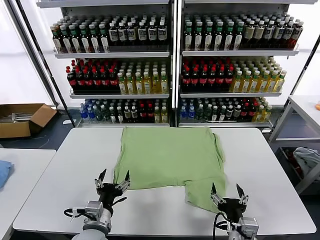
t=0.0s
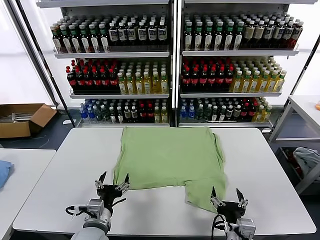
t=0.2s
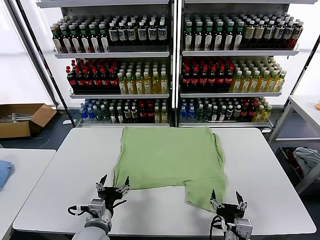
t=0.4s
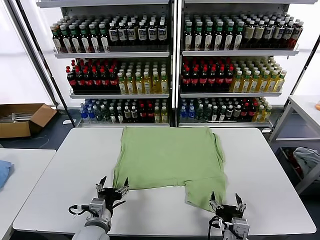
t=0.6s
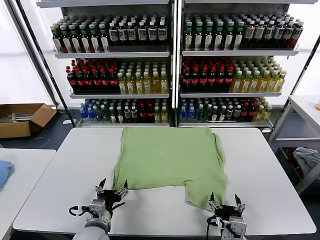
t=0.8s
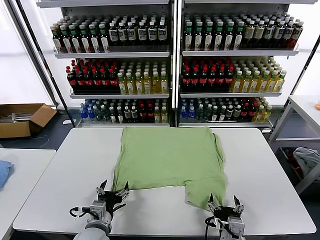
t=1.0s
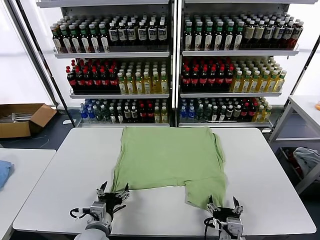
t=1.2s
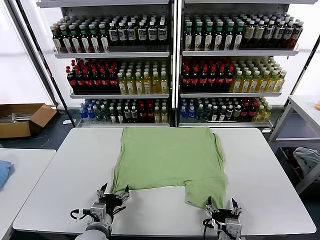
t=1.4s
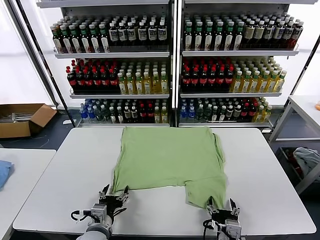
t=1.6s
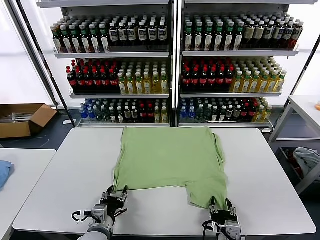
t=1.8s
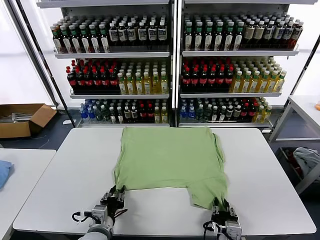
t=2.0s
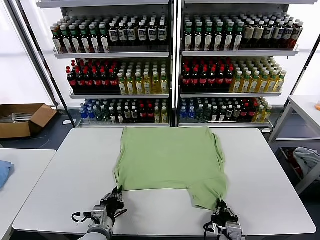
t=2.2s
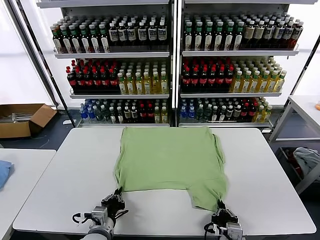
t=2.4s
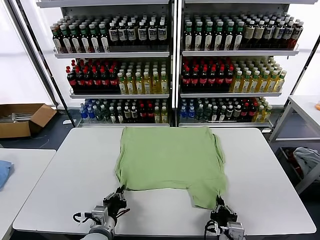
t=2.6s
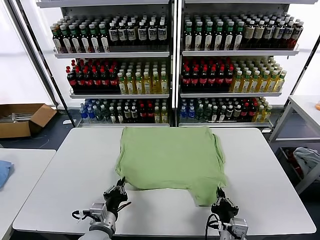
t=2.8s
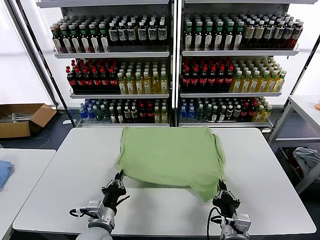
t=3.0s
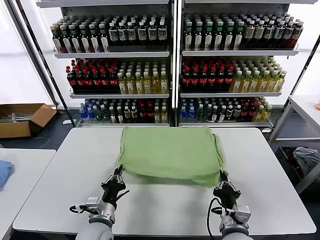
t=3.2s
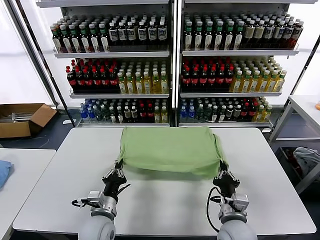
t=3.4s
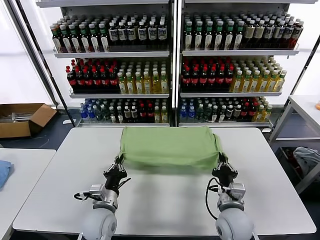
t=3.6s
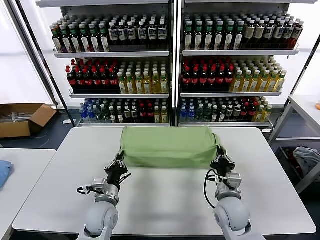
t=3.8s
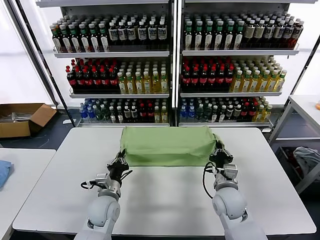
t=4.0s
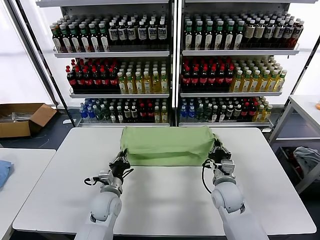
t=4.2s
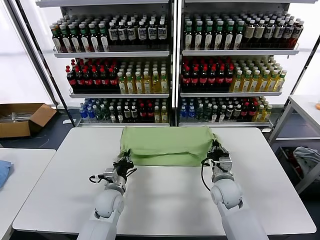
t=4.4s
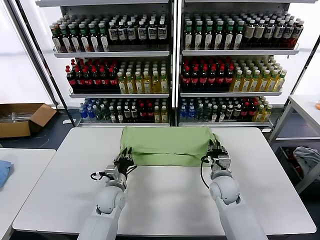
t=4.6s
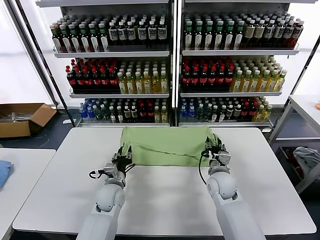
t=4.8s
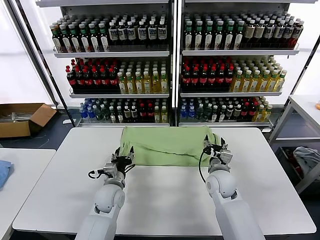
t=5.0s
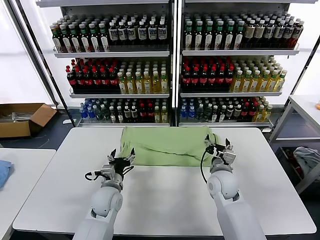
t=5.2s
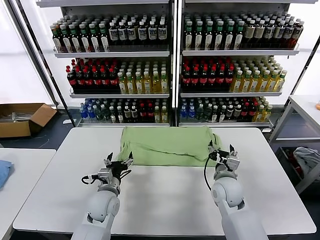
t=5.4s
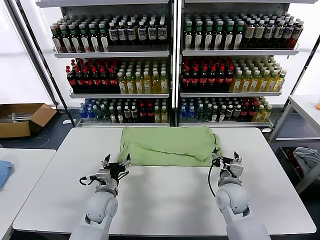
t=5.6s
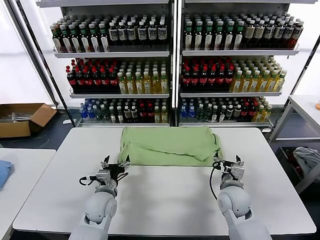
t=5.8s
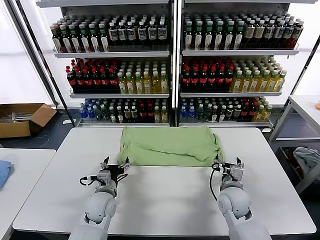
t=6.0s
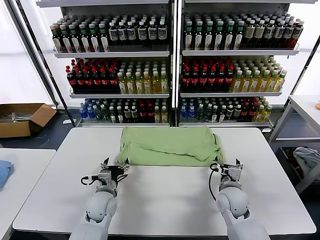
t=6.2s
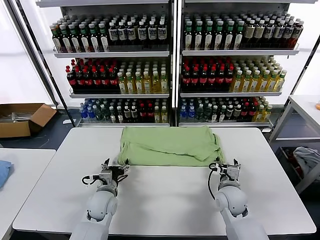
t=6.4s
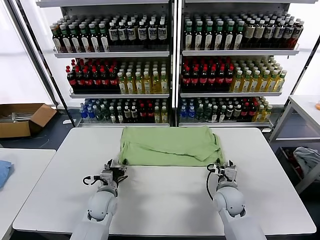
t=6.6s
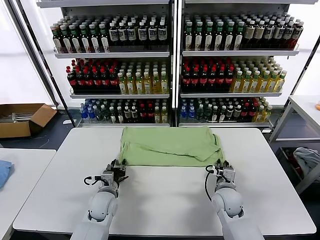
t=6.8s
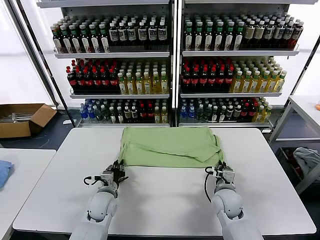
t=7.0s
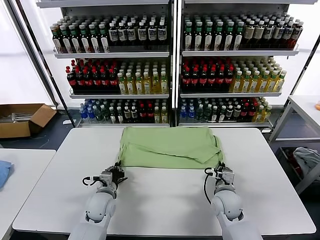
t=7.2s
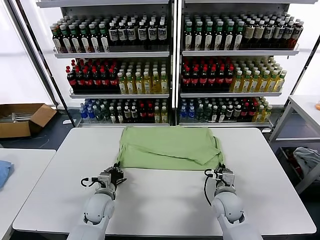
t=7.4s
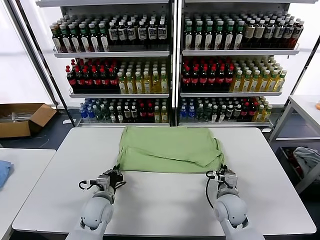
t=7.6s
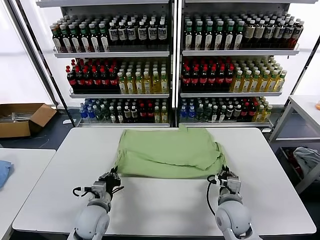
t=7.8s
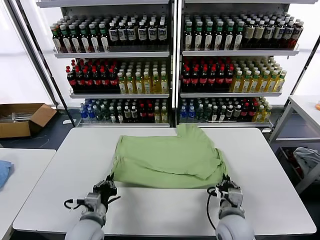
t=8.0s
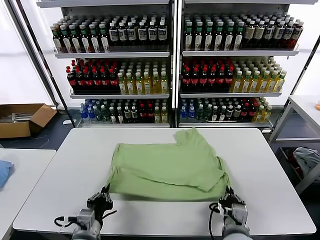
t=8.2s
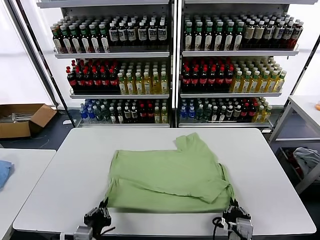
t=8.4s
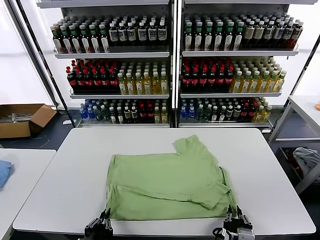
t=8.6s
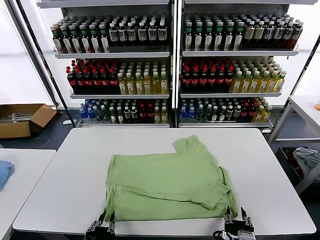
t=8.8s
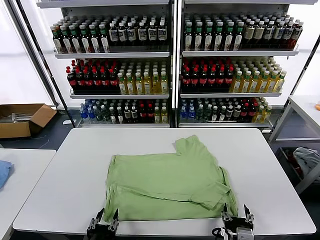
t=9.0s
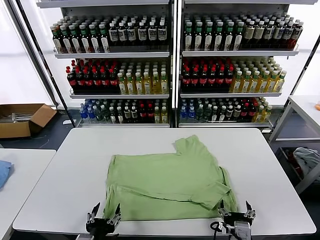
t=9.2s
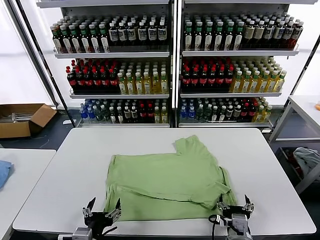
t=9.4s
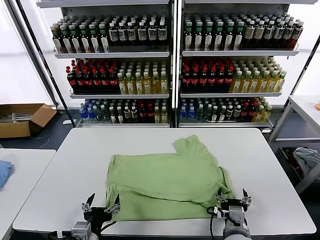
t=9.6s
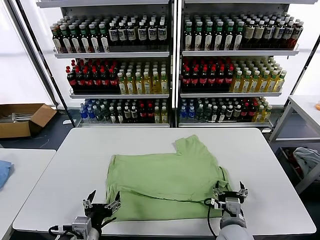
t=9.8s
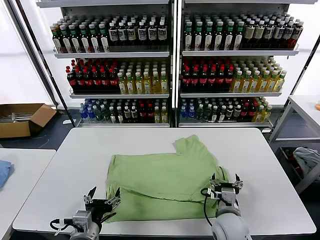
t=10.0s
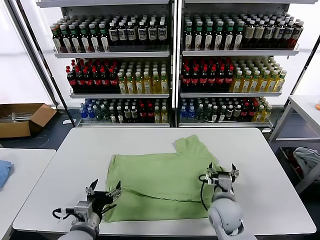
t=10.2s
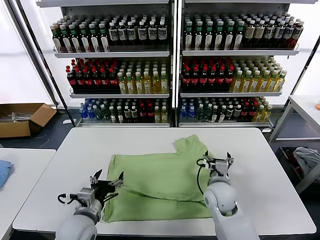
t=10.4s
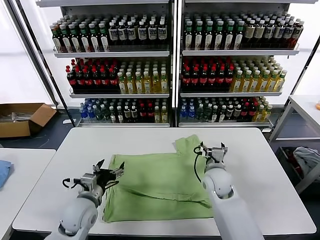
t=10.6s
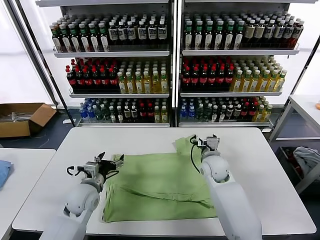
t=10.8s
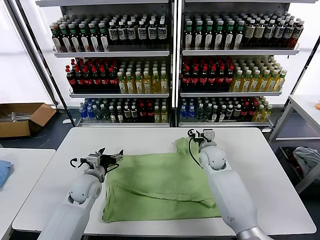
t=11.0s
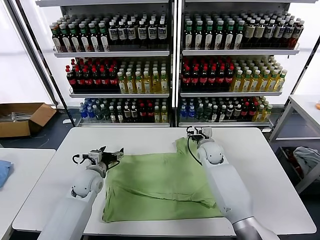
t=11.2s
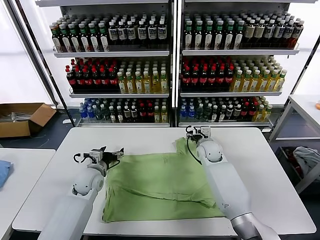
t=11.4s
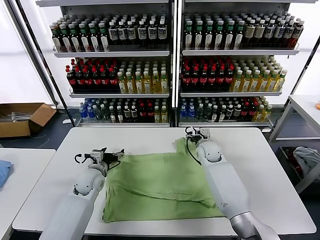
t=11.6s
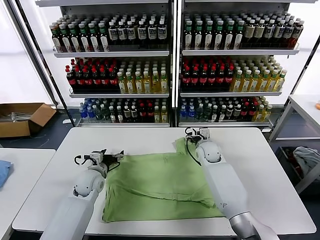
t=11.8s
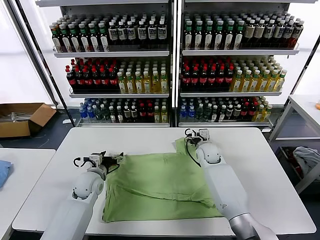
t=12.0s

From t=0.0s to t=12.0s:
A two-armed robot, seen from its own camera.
Task of the whole recording: fold and organize the clothes.
Step, from t=0.0s to t=2.4s: use both grippers simultaneously to clamp the lower edge of the clothing fabric.
Step, from t=2.6s to t=4.8s: use both grippers to drag the lower edge of the fabric forward and fold it over the upper edge.
Step, from t=5.2s to t=8.8s: Drag the clothes downward with both gripper.
From t=1.6s to t=3.0s: The left gripper closes up. The right gripper closes up.
From t=3.0s to t=4.4s: Both grippers travel together forward, some 15 cm.
From t=4.4s to t=6.0s: The left gripper opens up. Meanwhile the right gripper opens.
From t=6.0s to t=7.6s: The left gripper closes. The right gripper closes up.
From t=7.6s to t=9.0s: Both grippers travel together backward, about 20 cm. The right gripper opens its fingers. The left gripper opens up.
From t=9.0s to t=10.4s: The left gripper travels forward by about 15 cm, while the right gripper is displaced forward by about 25 cm.
From t=10.4s to t=12.0s: Both grippers travel together forward, roughly 15 cm.

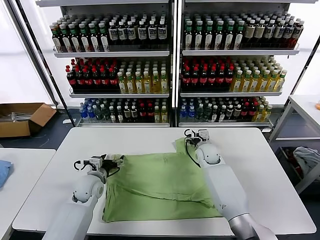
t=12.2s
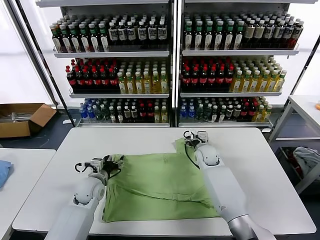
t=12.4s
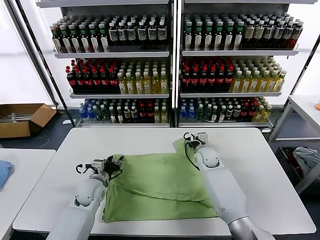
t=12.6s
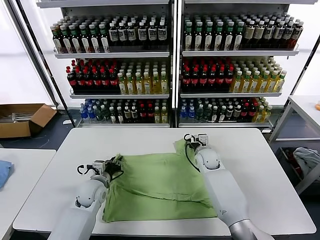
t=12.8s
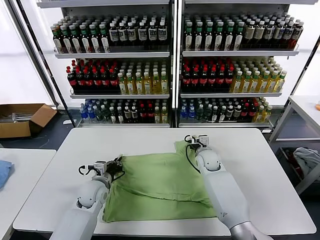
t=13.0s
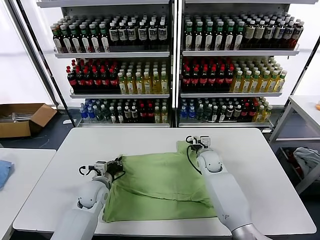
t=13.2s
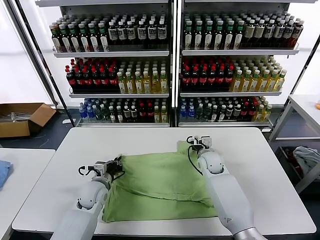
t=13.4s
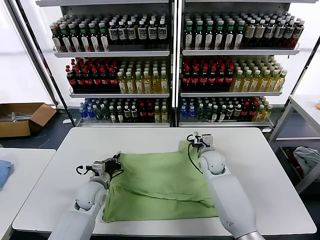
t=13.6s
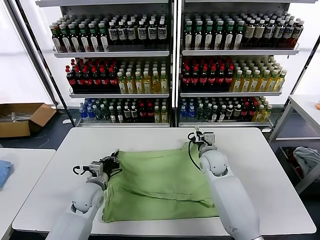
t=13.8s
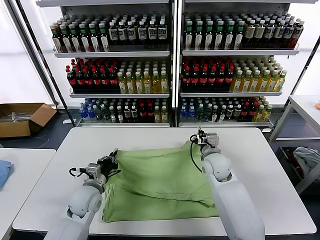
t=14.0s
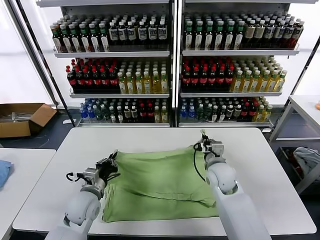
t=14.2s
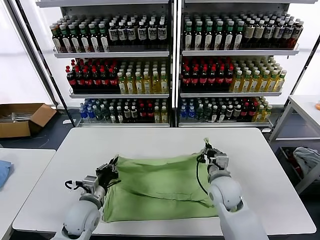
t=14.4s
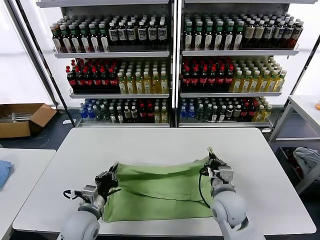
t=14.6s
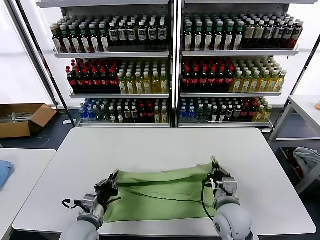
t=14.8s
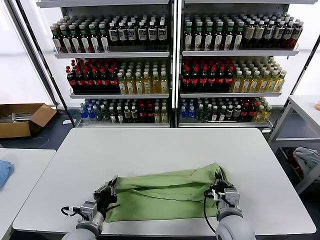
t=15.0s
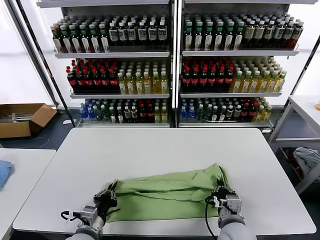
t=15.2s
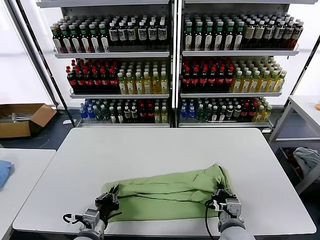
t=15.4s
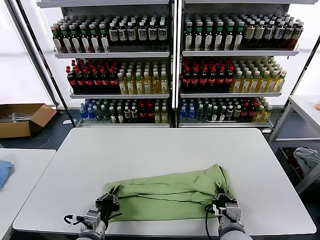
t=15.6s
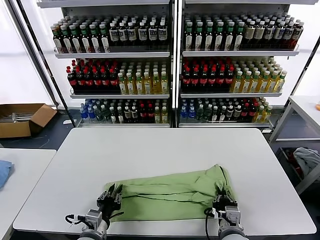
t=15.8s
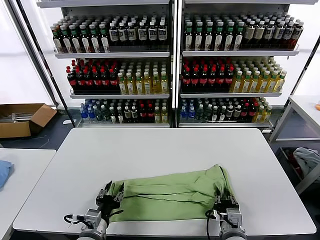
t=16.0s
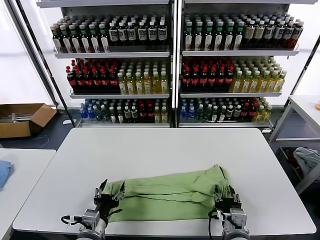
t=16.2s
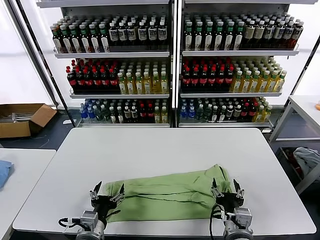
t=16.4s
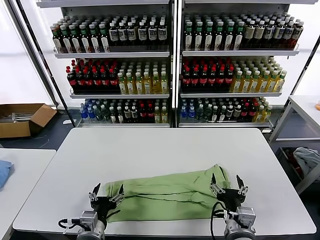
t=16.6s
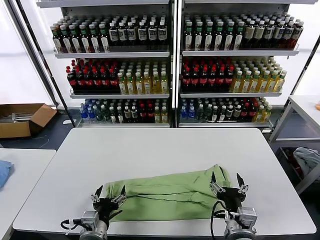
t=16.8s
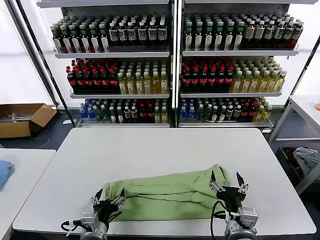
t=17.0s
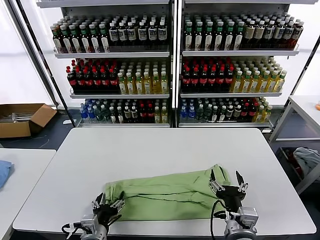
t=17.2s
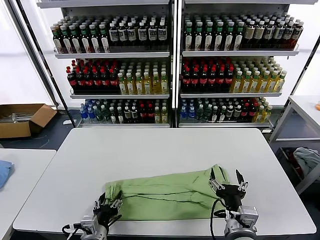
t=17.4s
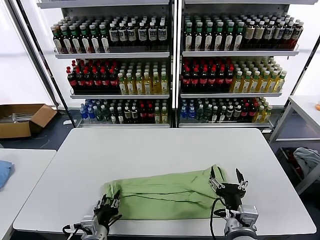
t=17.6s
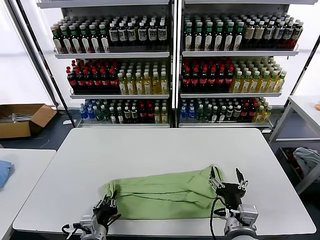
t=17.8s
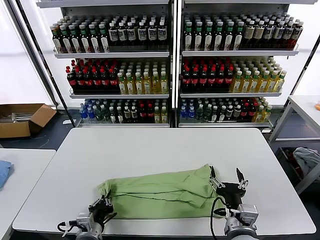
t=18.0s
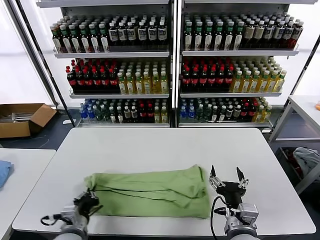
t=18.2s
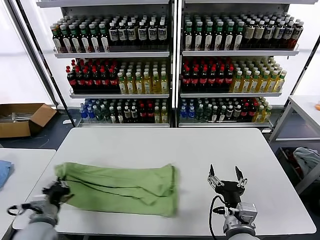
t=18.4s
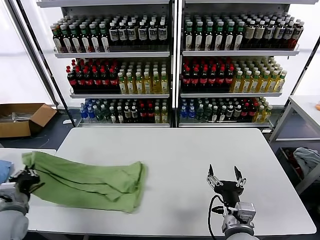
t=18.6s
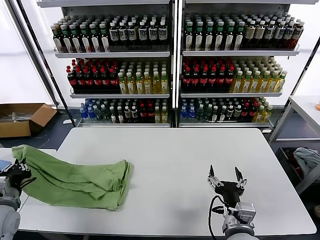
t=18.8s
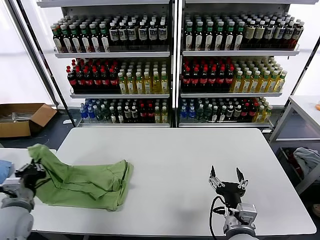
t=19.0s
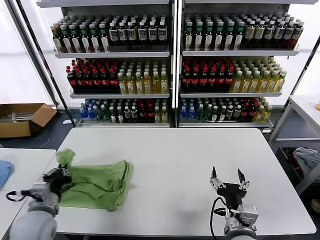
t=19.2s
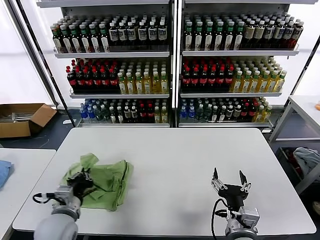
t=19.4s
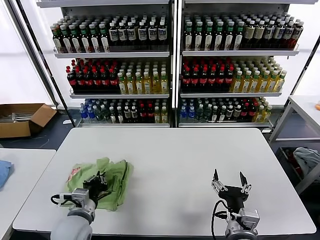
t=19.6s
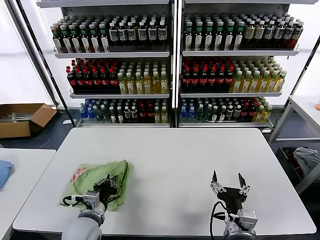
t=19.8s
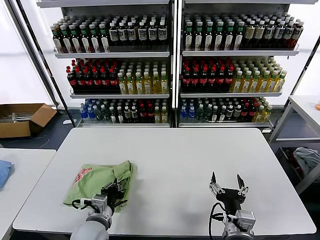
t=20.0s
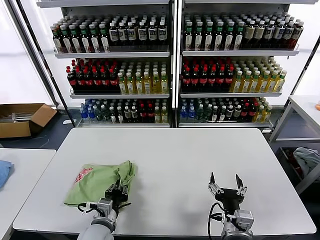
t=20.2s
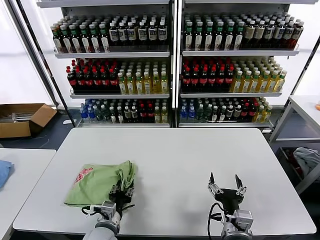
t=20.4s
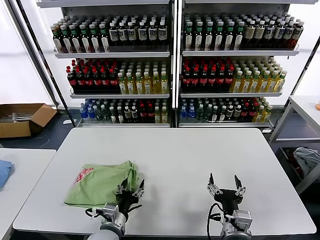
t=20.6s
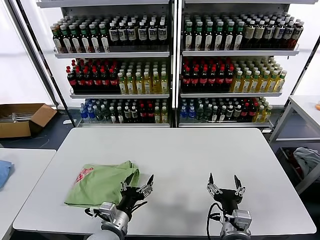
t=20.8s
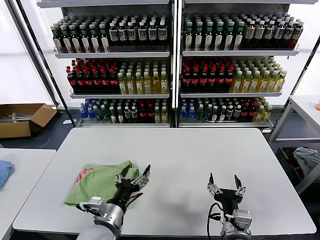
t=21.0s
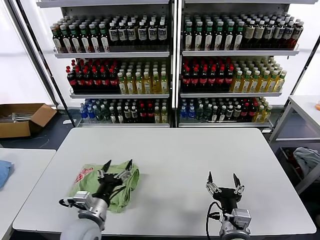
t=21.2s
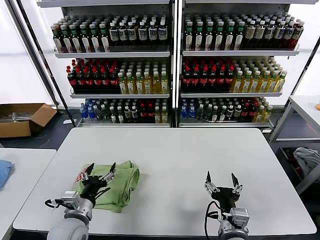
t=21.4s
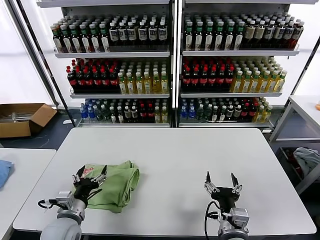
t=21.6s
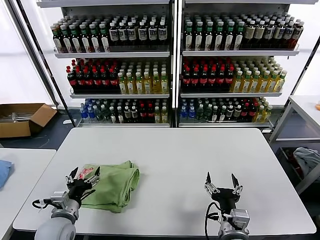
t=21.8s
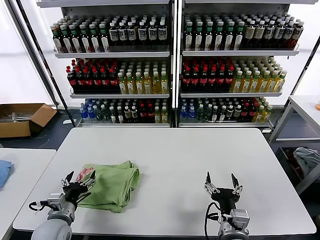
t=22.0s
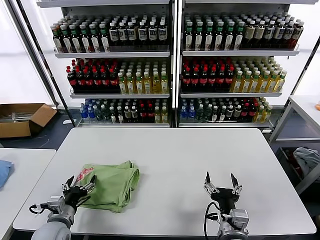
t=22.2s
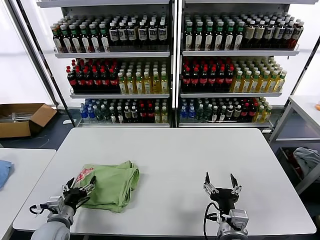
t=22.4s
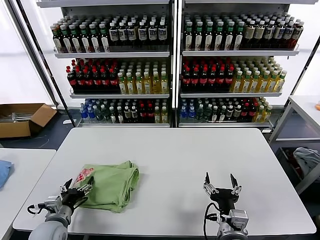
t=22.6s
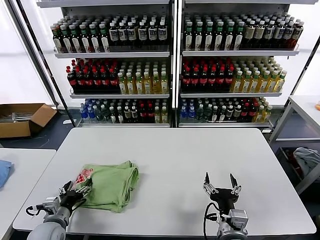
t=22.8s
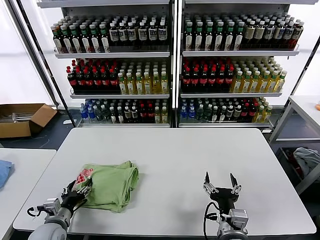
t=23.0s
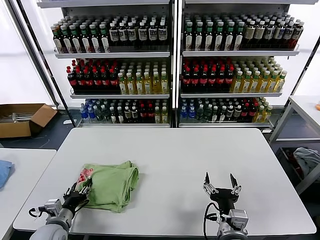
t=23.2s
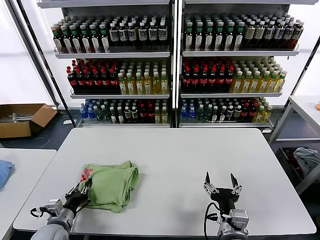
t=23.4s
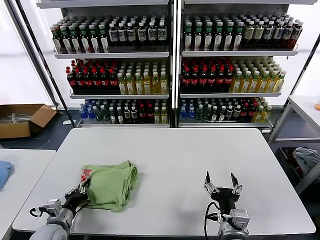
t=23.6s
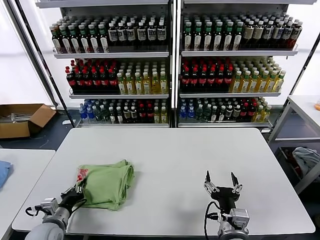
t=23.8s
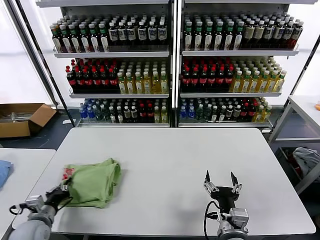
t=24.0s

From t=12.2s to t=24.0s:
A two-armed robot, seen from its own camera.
Task of the whole recording: fold and organize the clothes.
Step, from t=13.4s to t=16.2s: use both grippers to drag the upper edge of the fabric backward and fold it over the lower edge.
Step, from t=16.4s to t=17.8s: use the left gripper to clamp the left edge of the fabric.
Step, from t=18.0s to t=20.8s: use the left gripper to drag the left edge of the fabric to the left and folds it over the right edge.
From t=12.2s to t=13.6s: The right gripper shifts some 5 cm backward, and closes up, while the left gripper closes.
From t=13.6s to t=15.2s: The right gripper shifts some 25 cm backward. The left gripper goes some 15 cm backward.
From t=15.2s to t=16.6s: The left gripper opens up; the right gripper ends up roughly 5 cm from where it was, and opens up.
From t=16.6s to t=18.2s: The left gripper shifts roughly 5 cm to the left, and closes its fingers.
From t=18.2s to t=19.6s: The left gripper moves roughly 15 cm to the left and comes back.
From t=19.6s to t=21.0s: The left gripper is displaced to the right by some 10 cm, and opens up.
From t=21.0s to t=22.6s: The left gripper travels to the left by about 20 cm.
From t=22.6s to t=24.0s: The left gripper closes its fingers.
